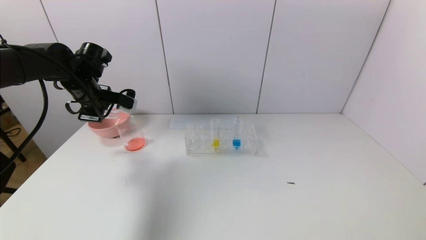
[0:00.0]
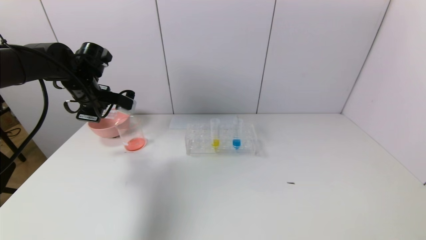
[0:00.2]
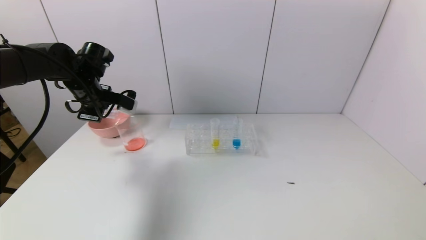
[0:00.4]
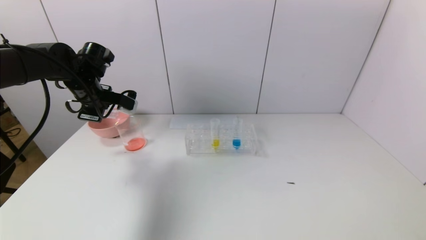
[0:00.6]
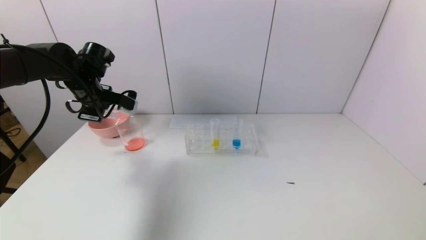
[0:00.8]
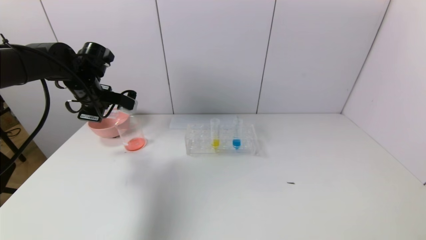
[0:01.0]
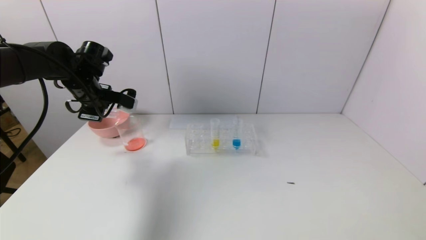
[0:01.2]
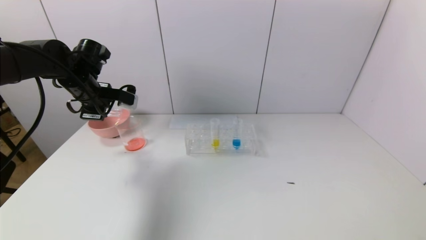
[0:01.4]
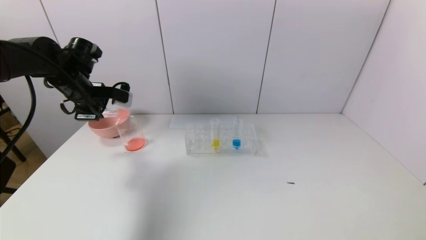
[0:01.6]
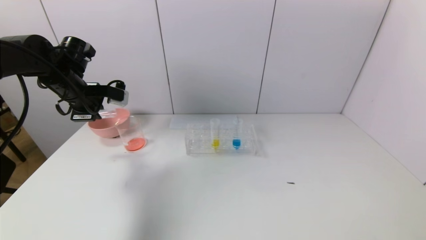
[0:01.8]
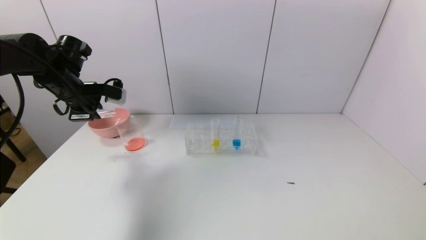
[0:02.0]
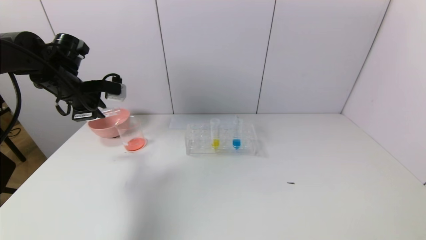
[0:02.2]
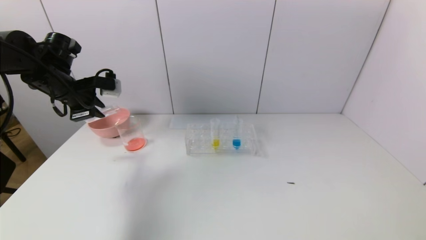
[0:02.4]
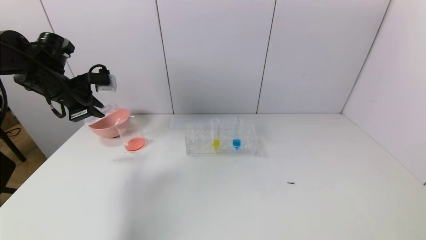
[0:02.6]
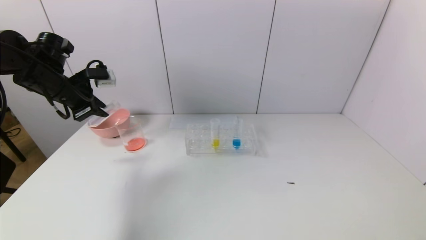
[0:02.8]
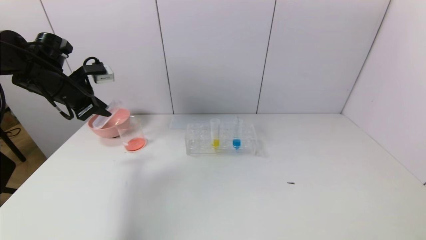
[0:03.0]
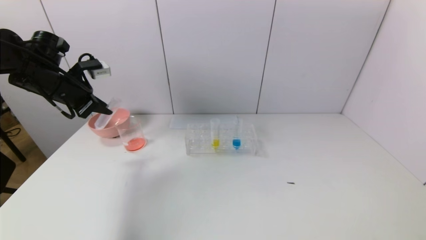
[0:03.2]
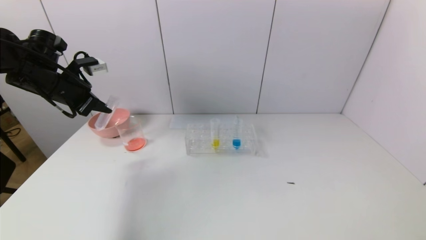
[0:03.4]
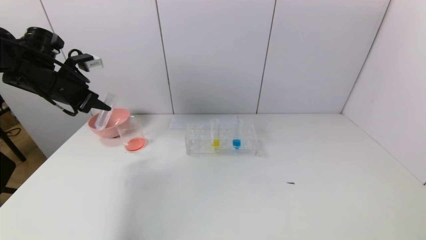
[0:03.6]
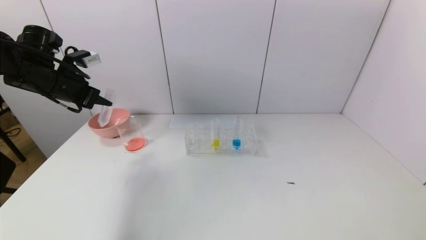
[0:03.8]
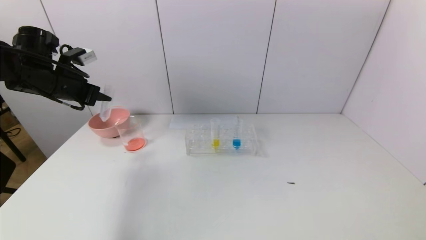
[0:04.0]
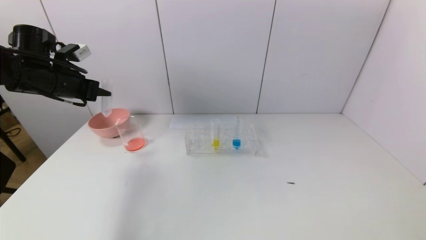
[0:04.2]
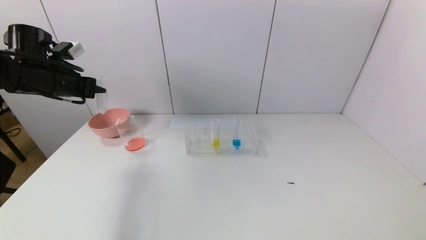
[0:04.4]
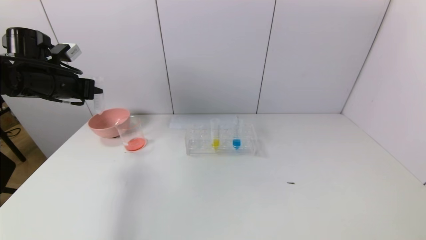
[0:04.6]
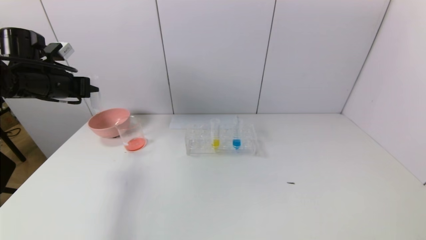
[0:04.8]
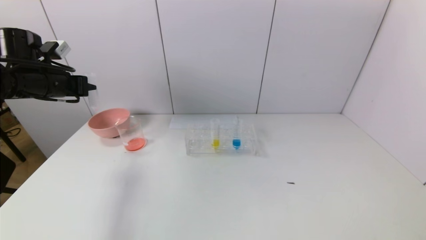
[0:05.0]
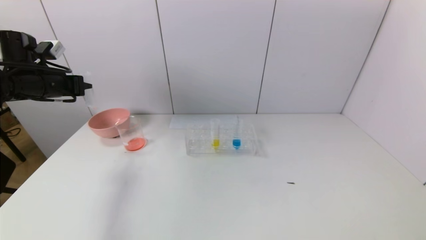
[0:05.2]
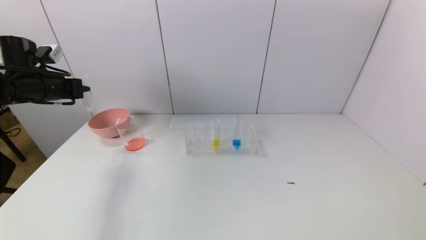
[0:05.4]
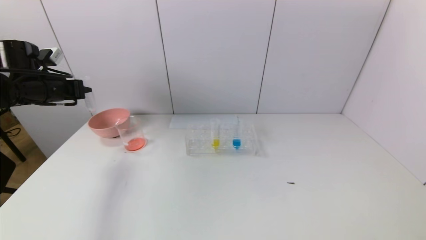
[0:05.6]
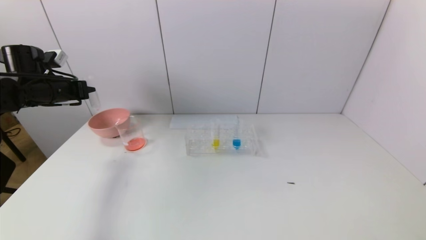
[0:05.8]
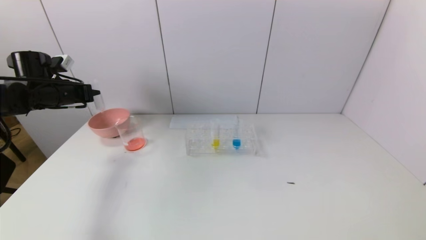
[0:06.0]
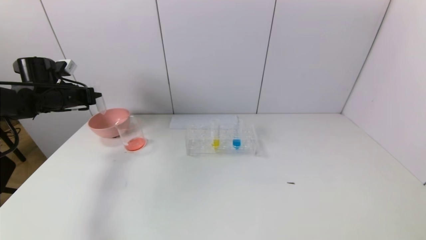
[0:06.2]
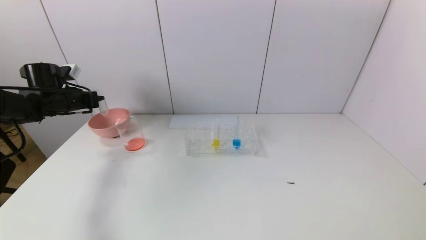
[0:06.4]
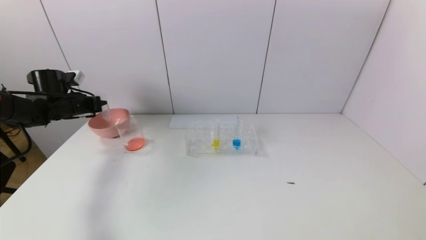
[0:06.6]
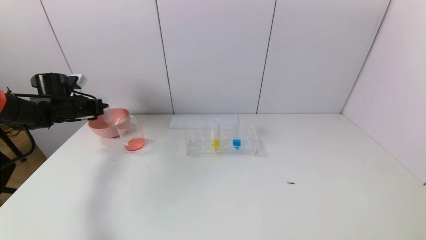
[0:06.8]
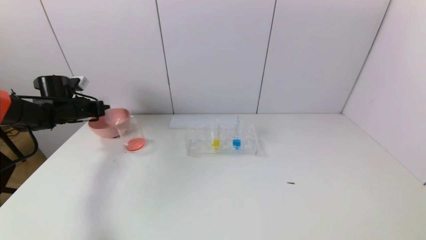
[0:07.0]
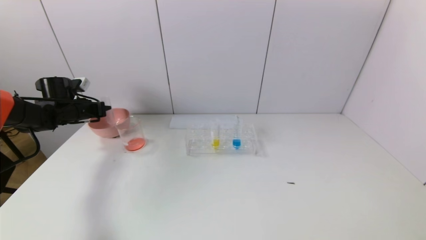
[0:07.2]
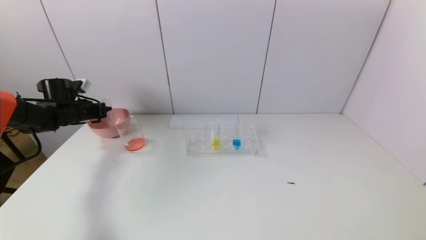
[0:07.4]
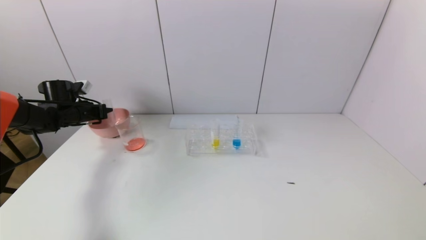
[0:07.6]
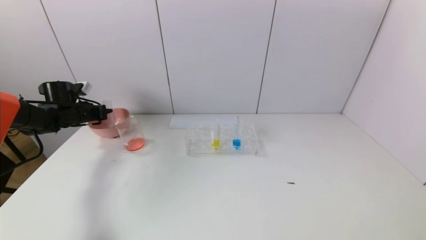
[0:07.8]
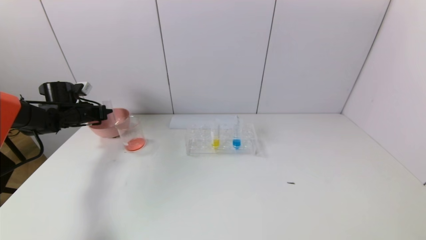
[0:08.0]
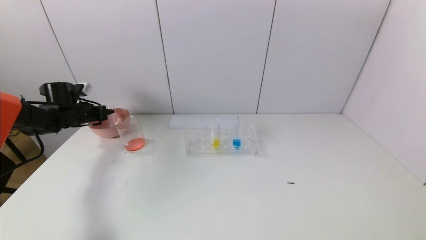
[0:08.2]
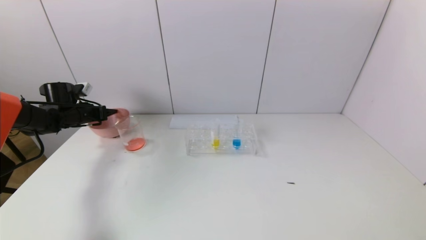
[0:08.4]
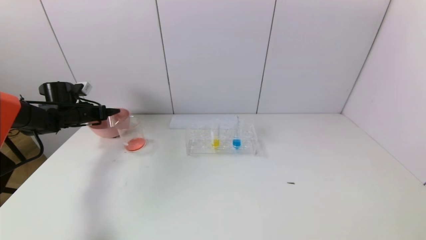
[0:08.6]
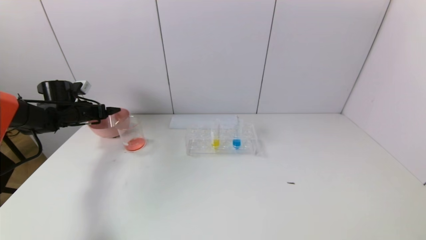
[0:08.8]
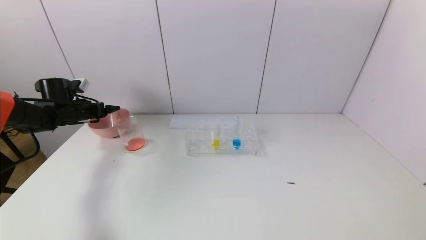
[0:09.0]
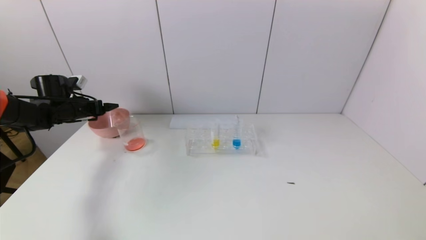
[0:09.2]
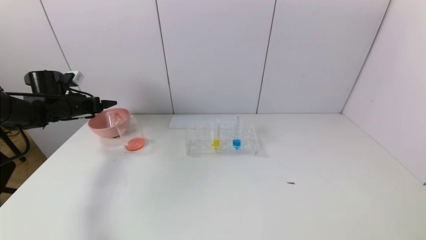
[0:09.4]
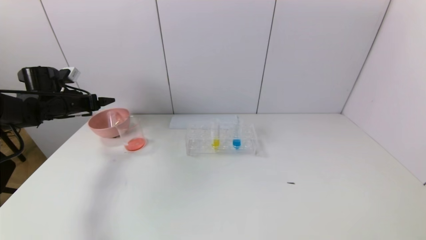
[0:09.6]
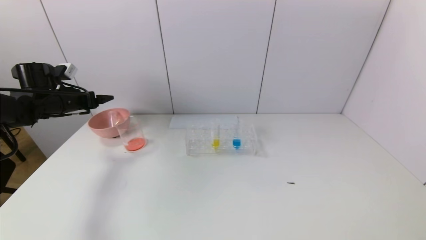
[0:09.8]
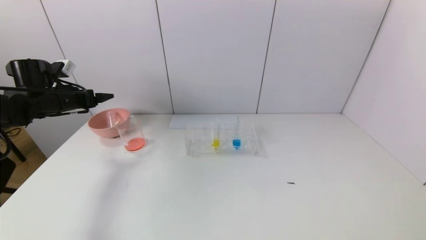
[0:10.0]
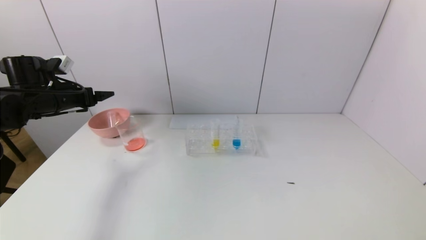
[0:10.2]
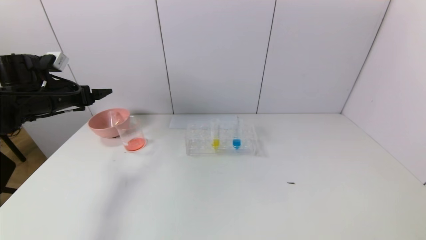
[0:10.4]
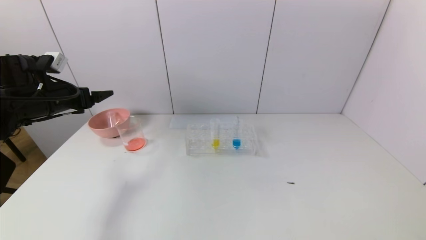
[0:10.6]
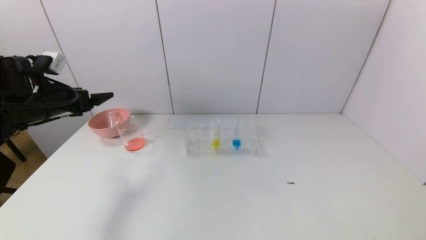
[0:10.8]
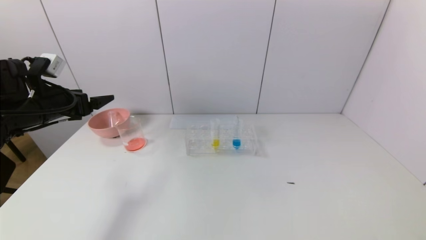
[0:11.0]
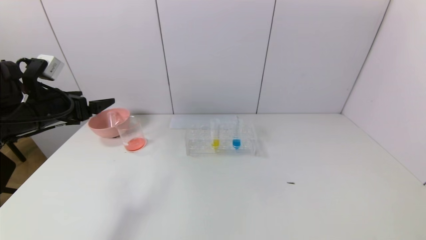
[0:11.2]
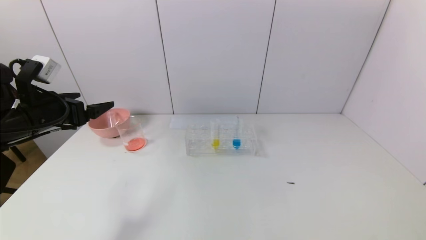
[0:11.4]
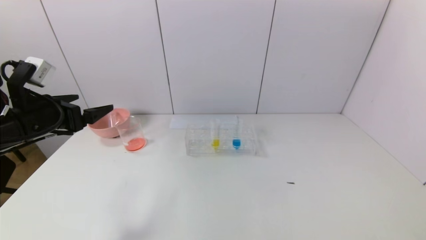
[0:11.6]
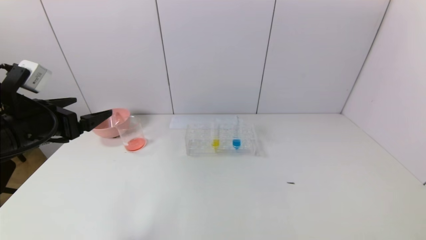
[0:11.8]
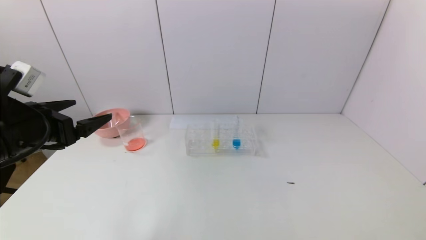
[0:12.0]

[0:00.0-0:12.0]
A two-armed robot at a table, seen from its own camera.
Task of the whole recording: pick up the test tube with yellow pigment and the test tube with red pigment by grippers and pour them into the beaker.
Step, 0:02.0 to 0:08.8: Place the test tube into the pink bowl with the left gripper.
0:00.0 to 0:01.6: The grippers stay close to where they were, moving slightly.
0:04.4 to 0:06.0: The left gripper moves downward, about 5 cm.
0:06.0 to 0:07.6: The left gripper shifts roughly 10 cm downward.
0:07.6 to 0:09.0: The left gripper opens.
0:09.0 to 0:10.4: The left gripper heads backward and upward, covering about 10 cm.
0:10.4 to 0:12.0: The left gripper heads backward and to the right, covering approximately 15 cm.

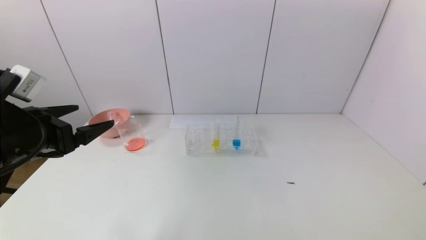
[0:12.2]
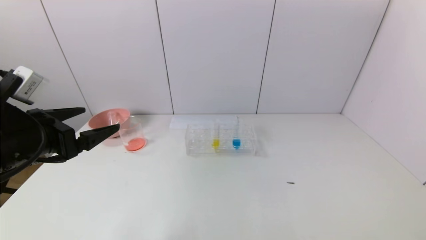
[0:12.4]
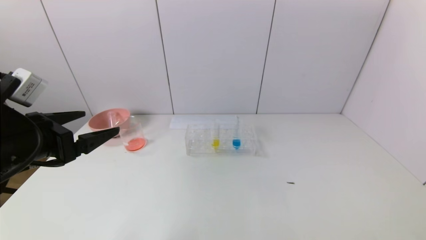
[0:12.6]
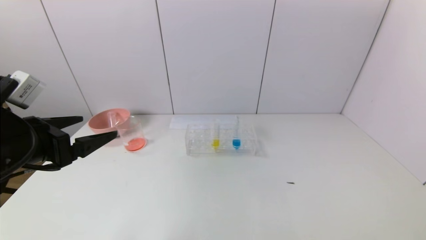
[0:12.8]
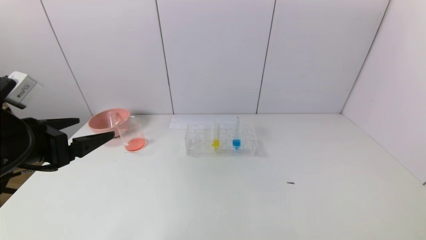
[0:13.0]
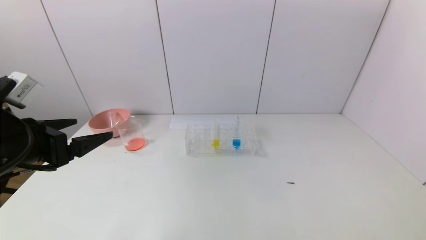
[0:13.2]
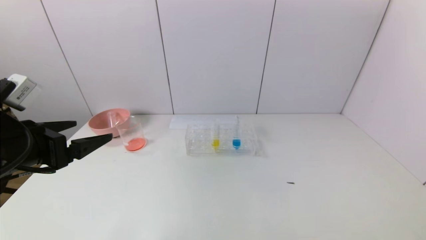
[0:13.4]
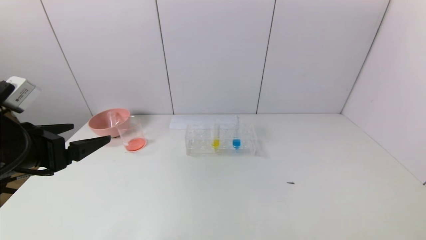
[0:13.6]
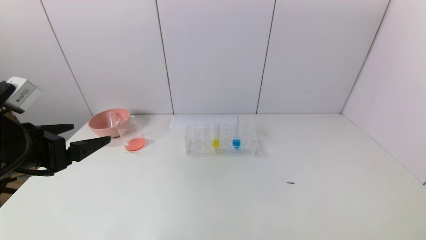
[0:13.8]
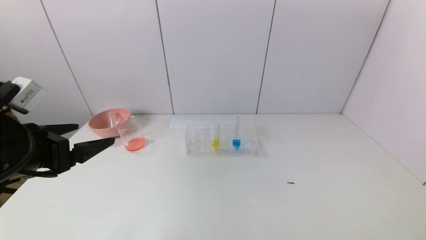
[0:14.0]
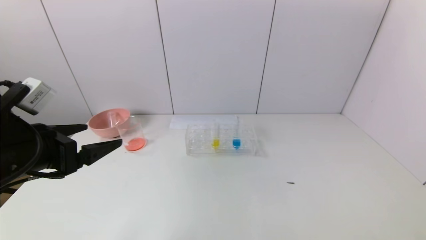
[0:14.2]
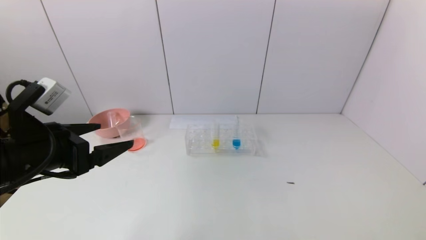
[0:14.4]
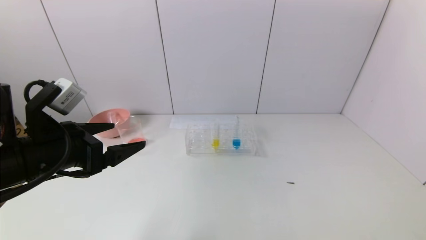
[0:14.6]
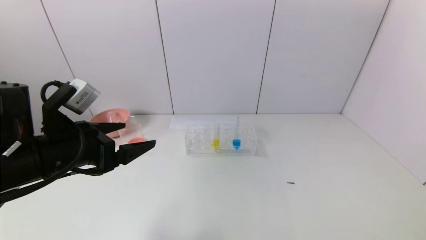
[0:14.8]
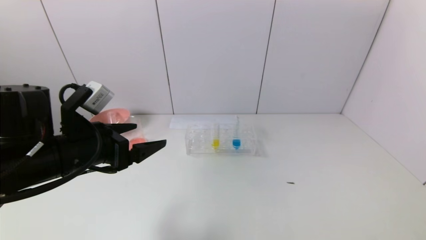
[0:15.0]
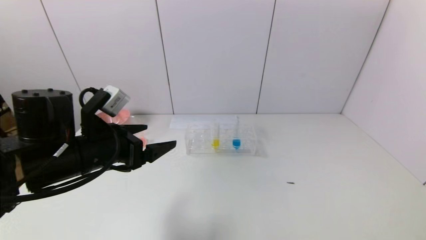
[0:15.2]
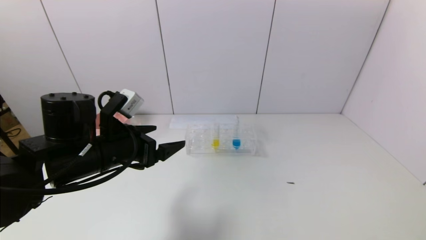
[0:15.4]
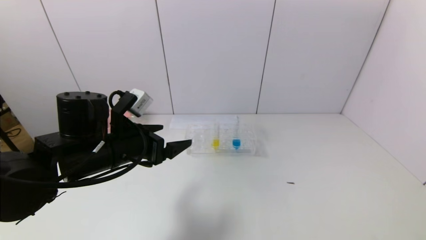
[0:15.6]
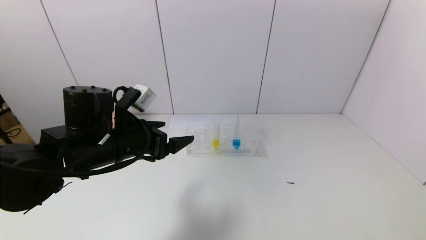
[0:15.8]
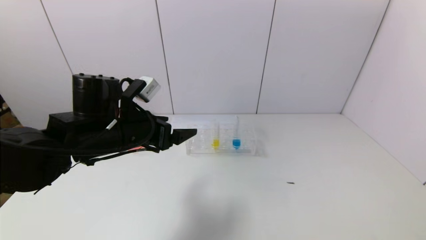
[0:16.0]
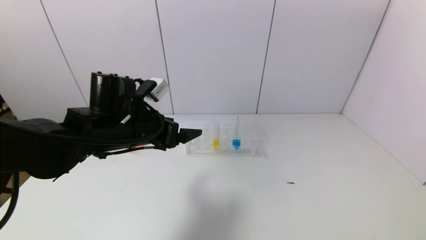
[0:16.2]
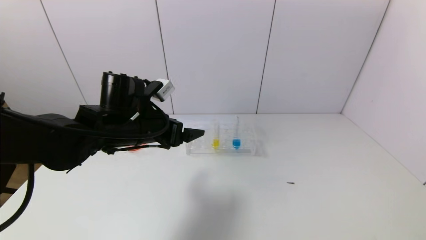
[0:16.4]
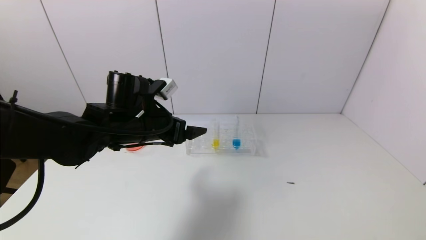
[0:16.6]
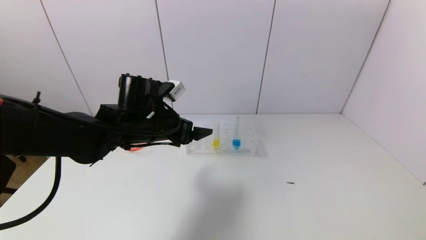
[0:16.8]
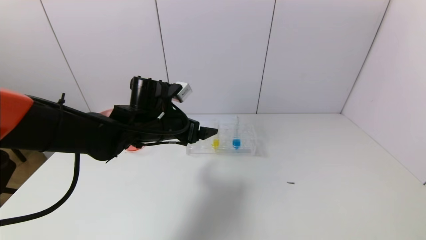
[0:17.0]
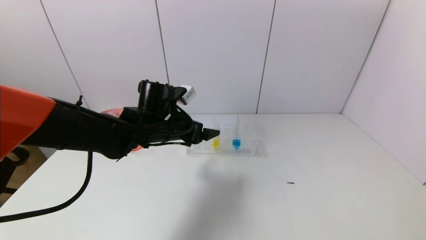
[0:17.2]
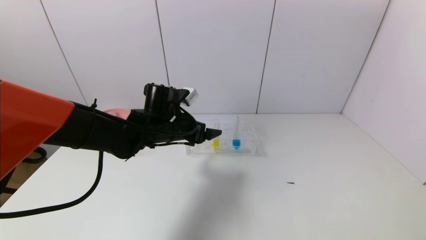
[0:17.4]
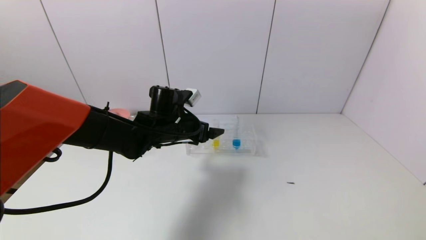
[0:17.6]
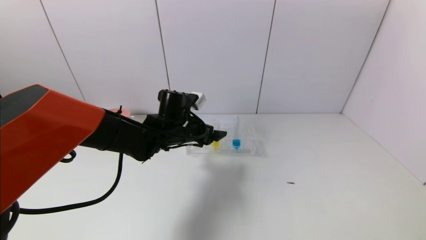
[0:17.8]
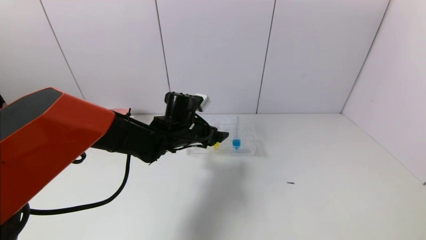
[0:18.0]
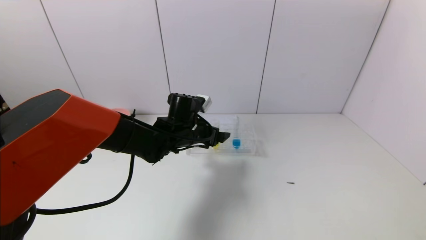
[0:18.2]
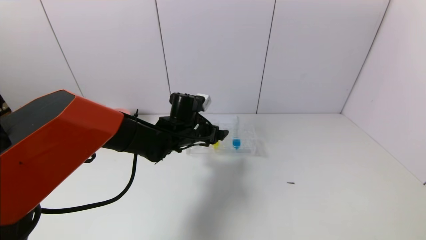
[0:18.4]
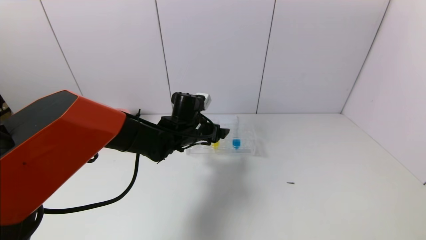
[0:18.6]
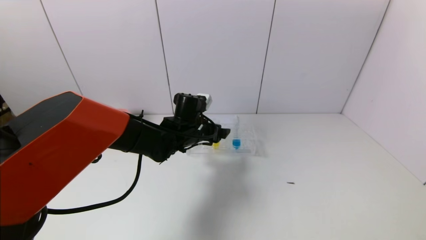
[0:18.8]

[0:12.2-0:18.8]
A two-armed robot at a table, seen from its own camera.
Task of the whole recording: pick up the test tube with yellow pigment and the test tube with red pigment by grippers and pour them into the beaker.
0:12.2 to 0:13.8: The grippers stay close to where they were, moving slightly.
0:13.8 to 0:15.4: The left gripper heads to the right and forward, covering roughly 10 cm.
0:15.4 to 0:17.2: The left gripper heads forward and to the right, covering some 15 cm.
0:17.2 to 0:18.8: The left gripper goes roughly 5 cm to the right.
